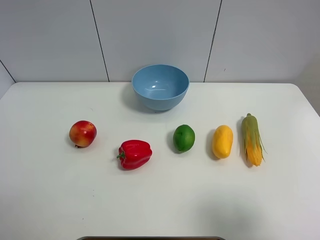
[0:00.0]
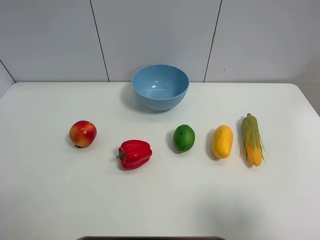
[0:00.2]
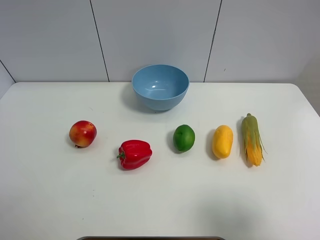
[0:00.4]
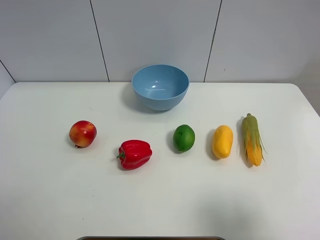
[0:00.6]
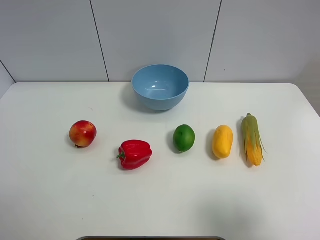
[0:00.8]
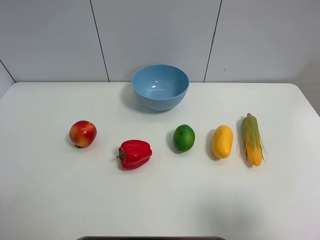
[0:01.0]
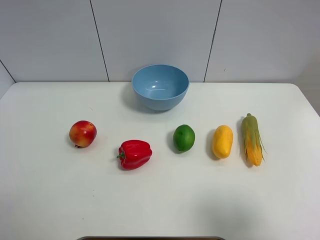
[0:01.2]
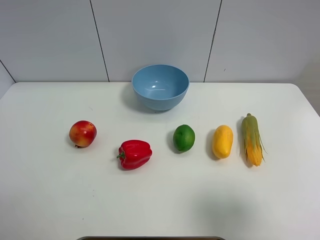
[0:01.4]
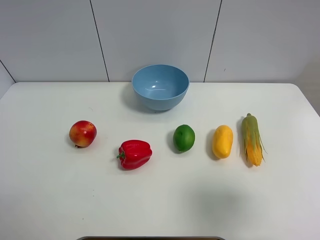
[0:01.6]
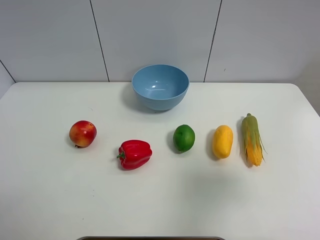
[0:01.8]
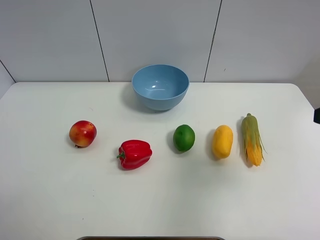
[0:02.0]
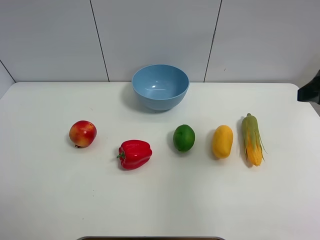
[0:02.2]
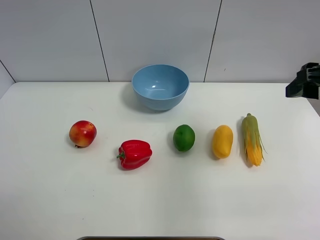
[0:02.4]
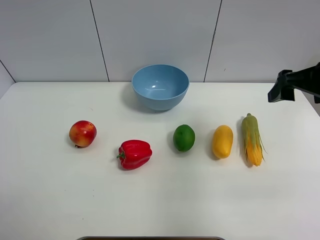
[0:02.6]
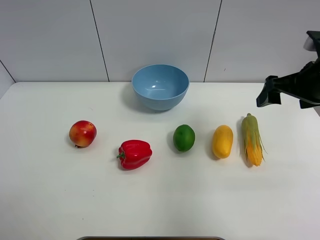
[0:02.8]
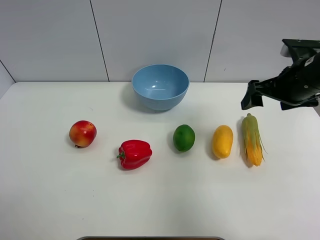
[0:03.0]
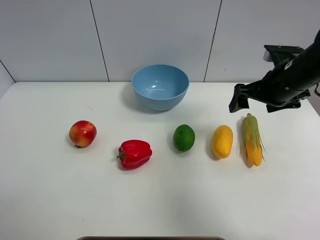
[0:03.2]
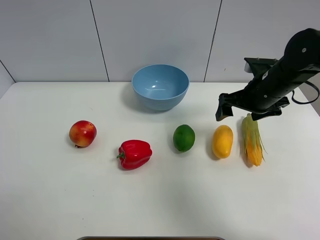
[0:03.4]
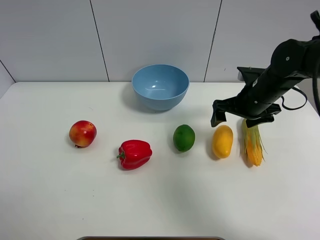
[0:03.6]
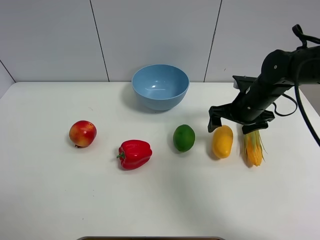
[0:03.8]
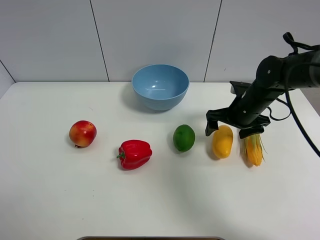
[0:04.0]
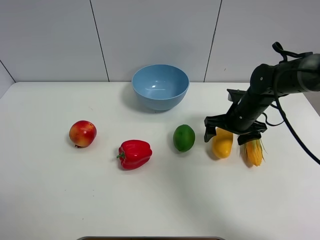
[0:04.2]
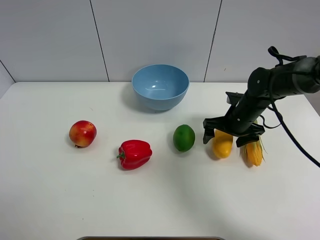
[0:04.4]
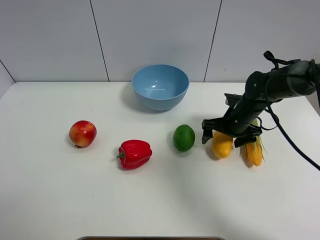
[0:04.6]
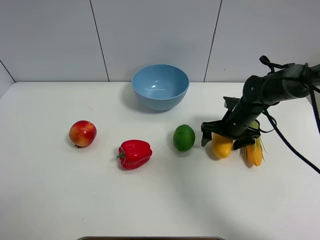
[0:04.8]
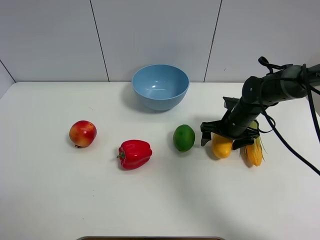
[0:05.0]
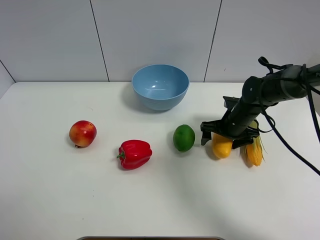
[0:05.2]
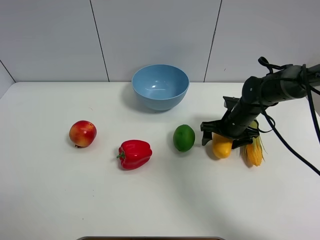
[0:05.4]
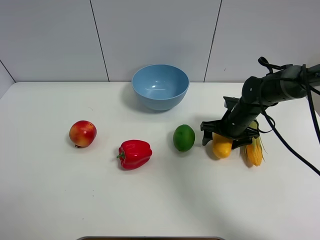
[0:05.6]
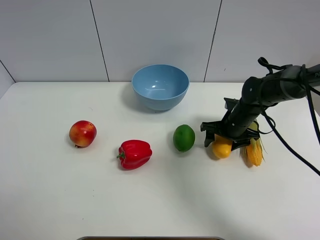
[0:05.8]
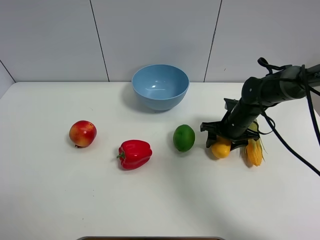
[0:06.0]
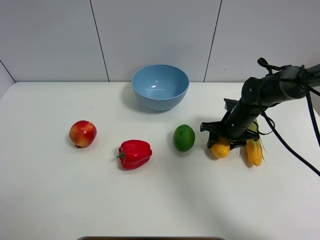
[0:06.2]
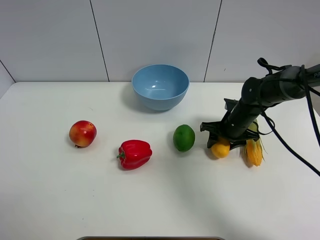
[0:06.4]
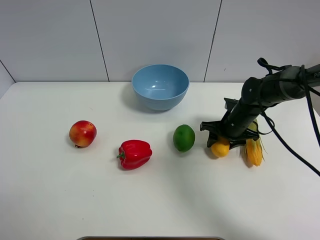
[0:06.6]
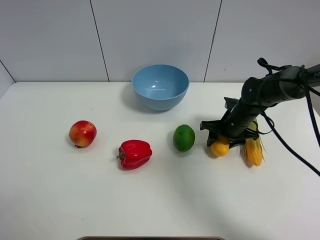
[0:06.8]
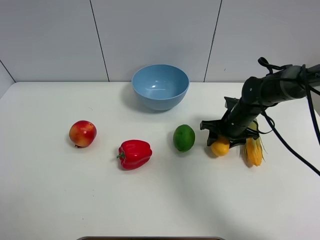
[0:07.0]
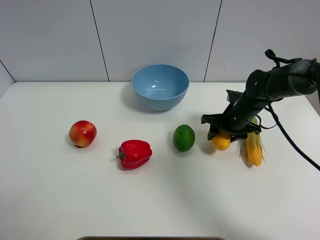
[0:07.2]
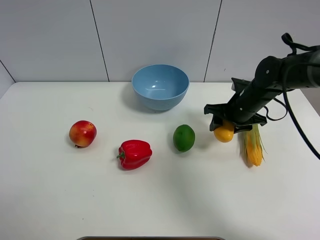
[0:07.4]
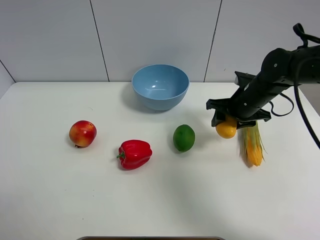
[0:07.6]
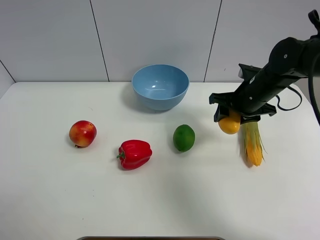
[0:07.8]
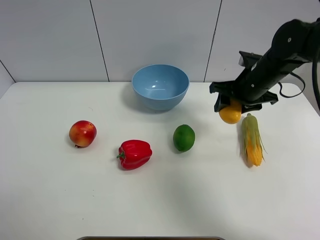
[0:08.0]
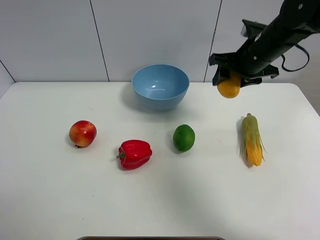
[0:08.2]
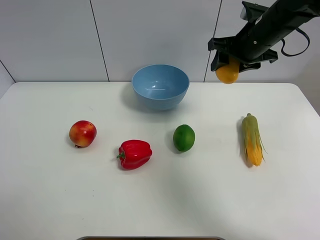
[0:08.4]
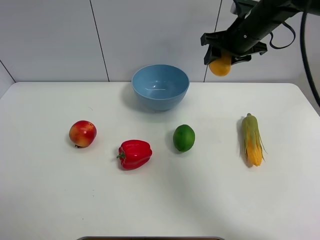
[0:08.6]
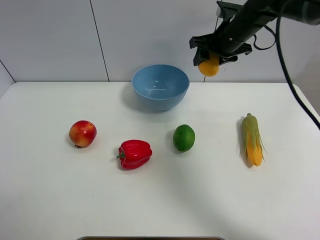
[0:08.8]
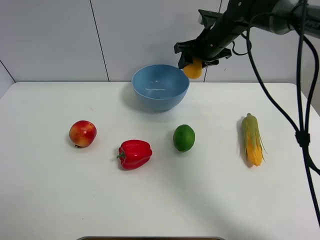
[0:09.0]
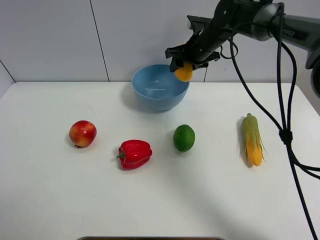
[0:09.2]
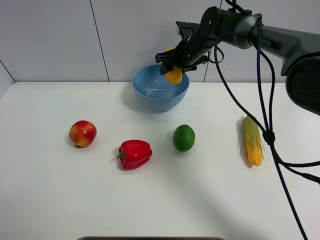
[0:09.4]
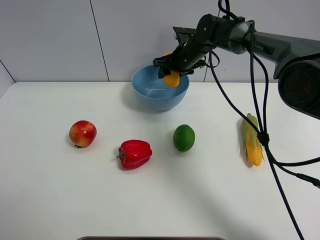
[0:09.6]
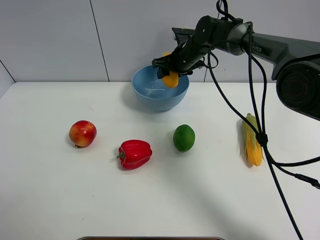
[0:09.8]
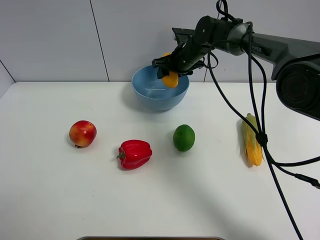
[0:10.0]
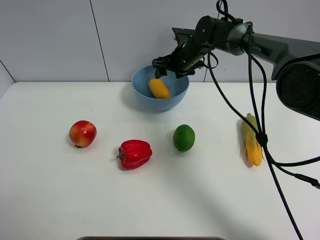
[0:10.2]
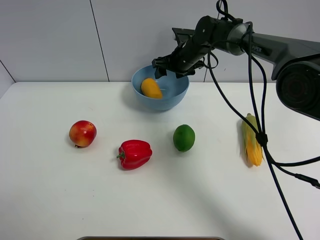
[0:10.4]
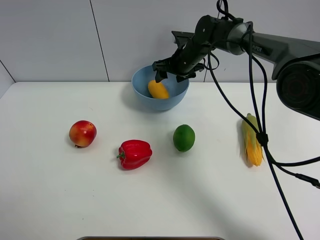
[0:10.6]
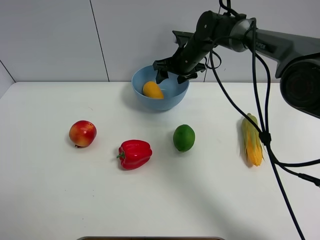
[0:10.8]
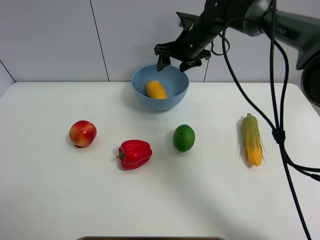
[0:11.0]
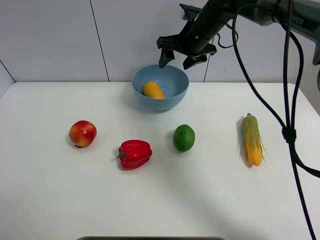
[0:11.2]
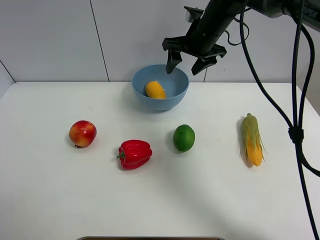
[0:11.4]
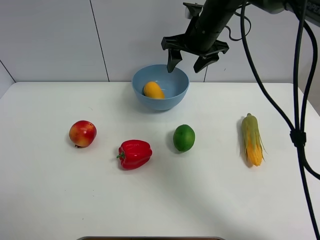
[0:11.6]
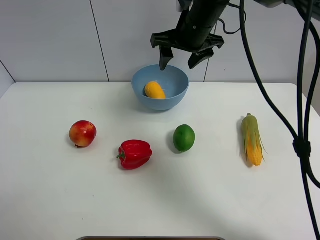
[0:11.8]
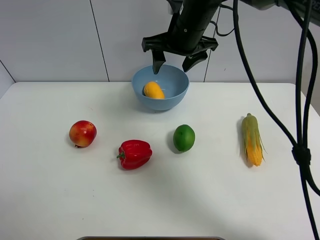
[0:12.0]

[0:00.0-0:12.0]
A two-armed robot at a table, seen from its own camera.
Task of the whole recording: Put the three fruits on the table into a bowl.
Step, 0:00.0 to 0:06.0: Grasp the mango with right gripper.
Step, 0:06.2 to 0:10.2: Place the mango in the blue bowl with right gripper.
0:00.0 to 0:01.6: The right gripper travels forward by some 5 cm.
0:01.6 to 0:03.0: The right gripper goes about 25 cm forward, and opens up.
0:03.0 to 0:04.4: The right gripper shifts some 15 cm downward.
0:04.4 to 0:06.0: The right gripper closes up.
0:06.0 to 0:07.6: The right gripper travels upward by roughly 10 cm.
0:07.6 to 0:09.0: The right gripper moves forward, to the left and upward, some 15 cm.
0:09.0 to 0:10.4: The right gripper travels downward by some 5 cm, and opens.
0:10.4 to 0:12.0: The right gripper is displaced upward and backward by approximately 15 cm.

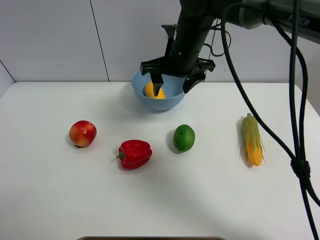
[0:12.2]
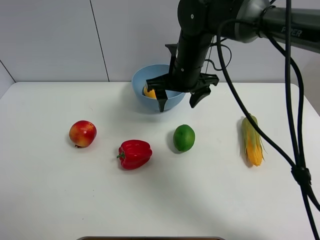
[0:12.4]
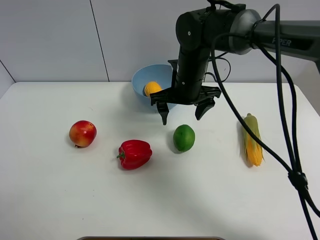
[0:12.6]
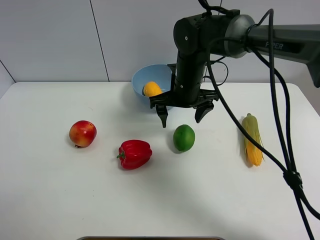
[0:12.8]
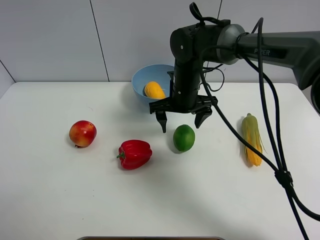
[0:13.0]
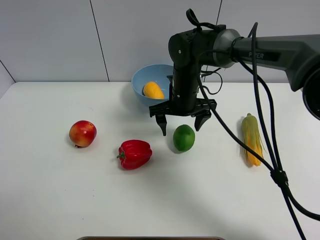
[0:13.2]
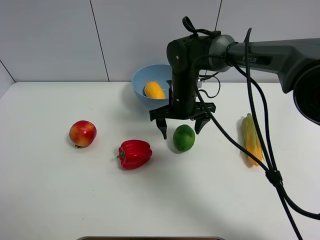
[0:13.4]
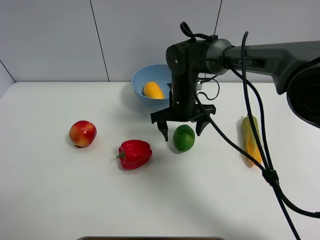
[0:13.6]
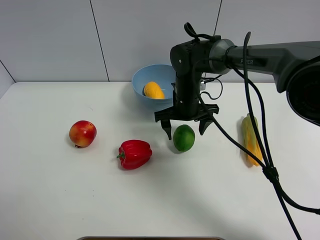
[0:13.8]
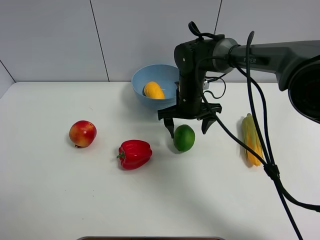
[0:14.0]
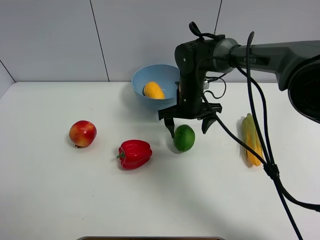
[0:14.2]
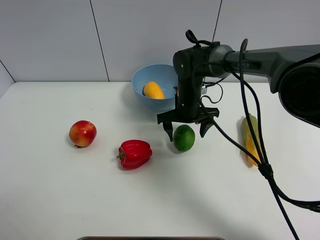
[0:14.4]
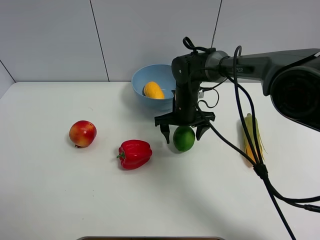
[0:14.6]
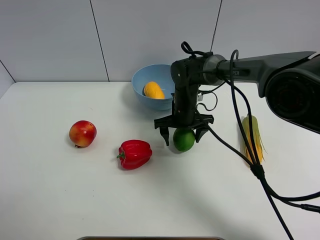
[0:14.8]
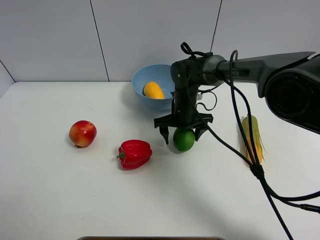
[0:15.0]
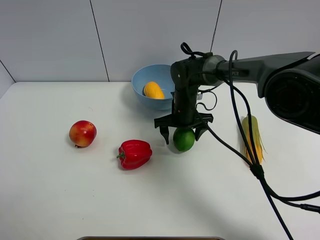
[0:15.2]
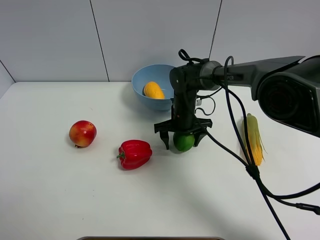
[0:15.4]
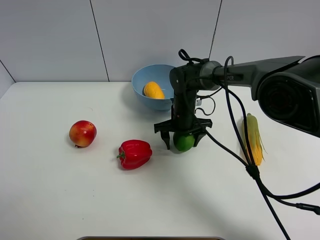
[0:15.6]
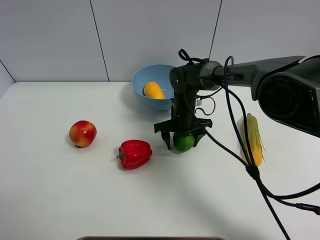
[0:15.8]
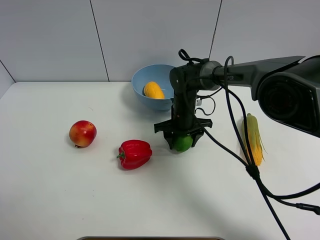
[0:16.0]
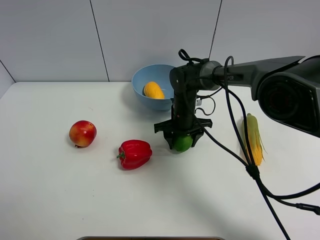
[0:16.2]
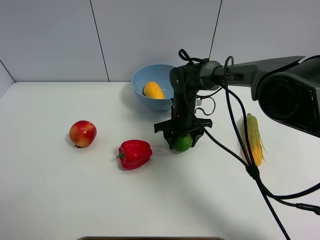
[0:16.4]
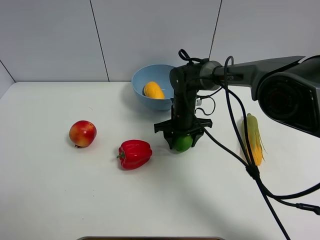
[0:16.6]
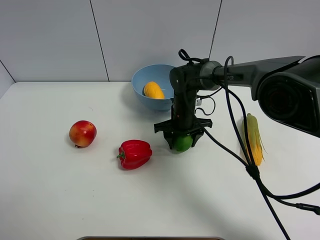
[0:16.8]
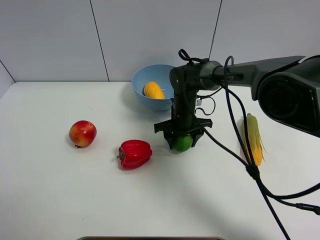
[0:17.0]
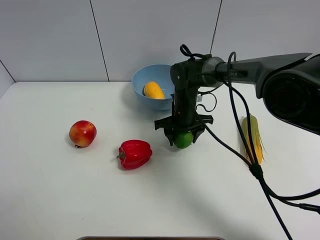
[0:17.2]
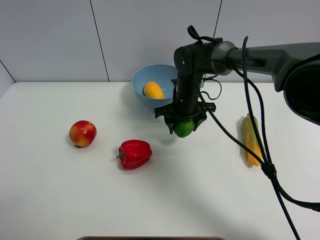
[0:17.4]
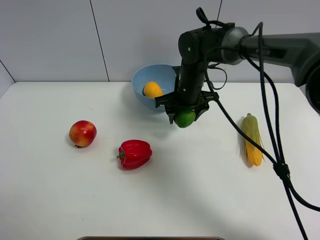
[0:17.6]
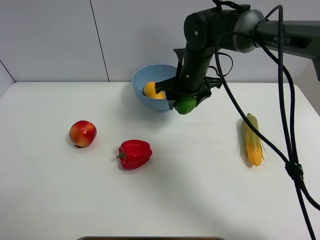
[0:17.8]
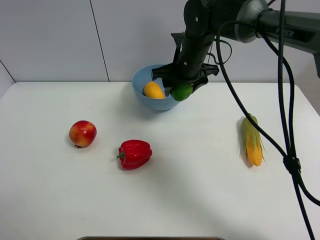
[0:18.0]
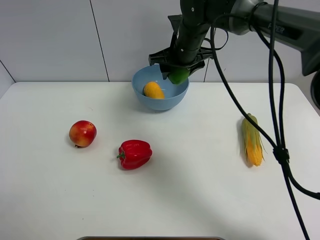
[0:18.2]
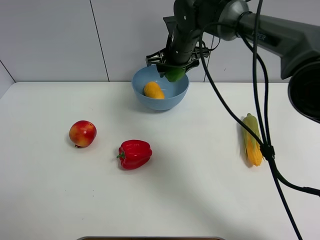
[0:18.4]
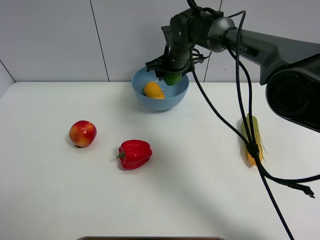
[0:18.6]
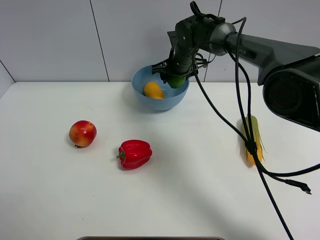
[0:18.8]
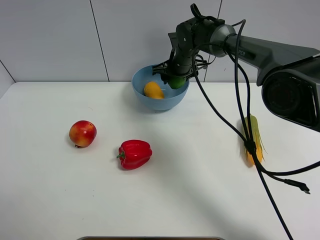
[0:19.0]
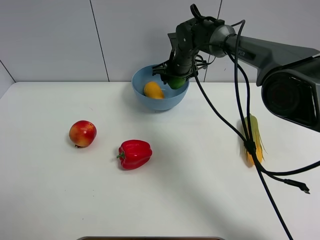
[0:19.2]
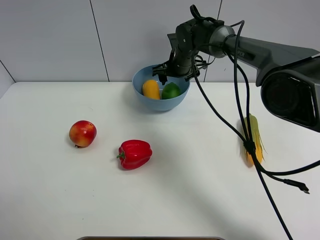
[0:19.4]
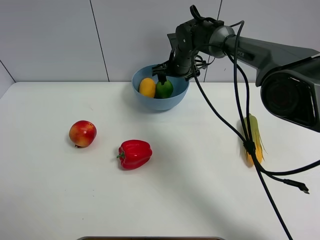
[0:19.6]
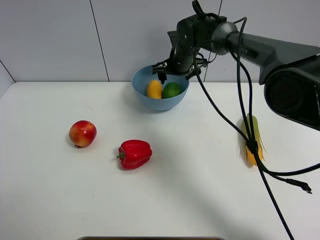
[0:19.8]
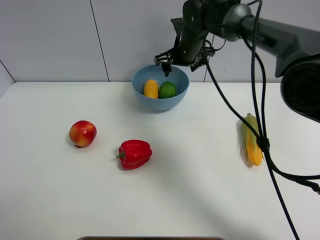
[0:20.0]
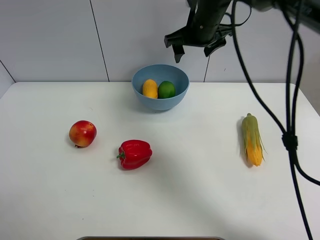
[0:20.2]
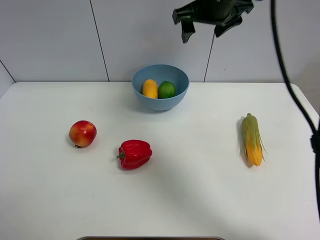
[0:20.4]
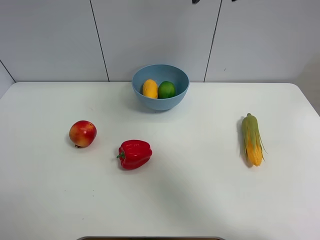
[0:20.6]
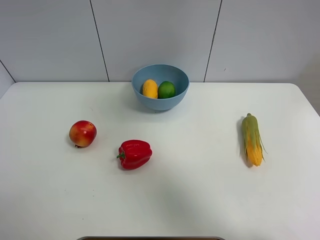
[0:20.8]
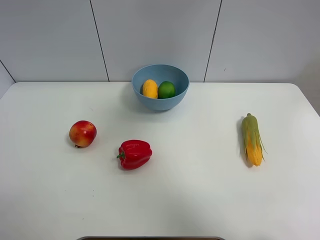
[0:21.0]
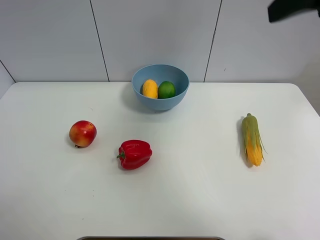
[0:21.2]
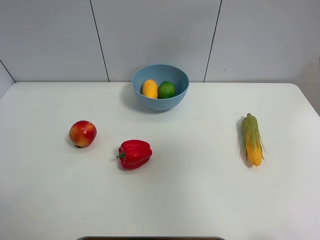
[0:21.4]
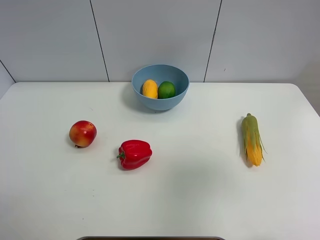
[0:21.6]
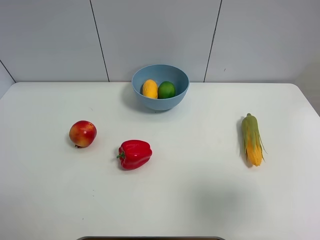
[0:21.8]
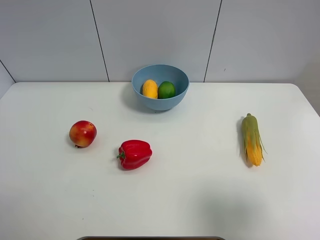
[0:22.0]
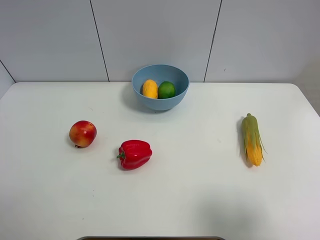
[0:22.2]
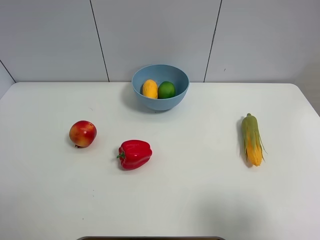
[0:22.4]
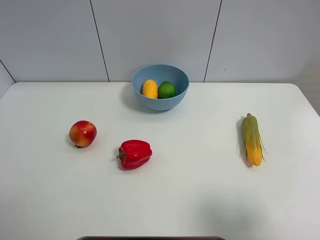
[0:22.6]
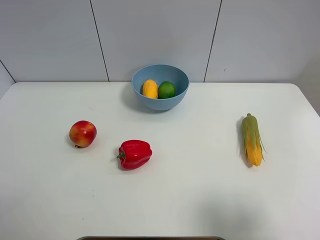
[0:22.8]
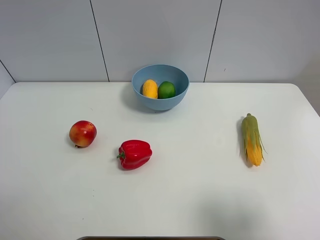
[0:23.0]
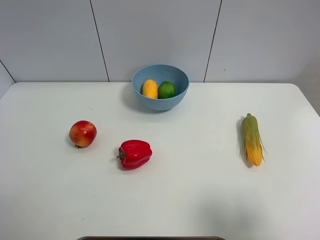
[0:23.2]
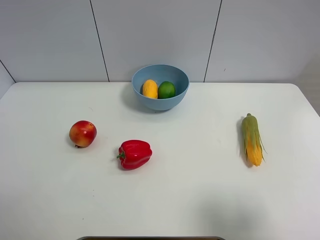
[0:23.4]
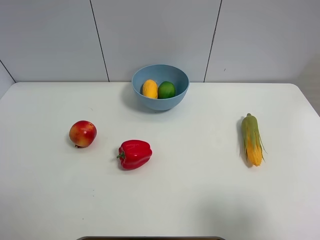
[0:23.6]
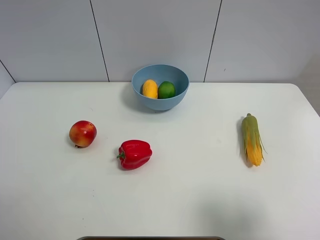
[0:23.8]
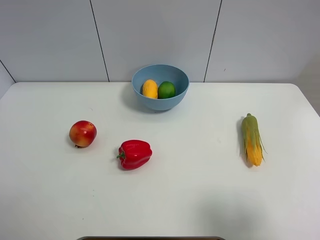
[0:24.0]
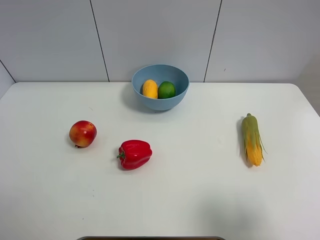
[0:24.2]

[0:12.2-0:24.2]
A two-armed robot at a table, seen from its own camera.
Task of the whole recording: Put the three fruits on the table into a bowl.
Step, 0:12.2 to 0:16.0: Grasp the green lemon with right gripper.
Step, 0:16.2 to 0:19.6: Place the green lemon in the blue bowl with right gripper.
0:12.2 to 0:13.8: The right gripper goes approximately 10 cm downward.
0:13.8 to 0:15.2: The right gripper shifts by about 5 cm.
0:15.2 to 0:16.6: The right gripper closes its fingers.
0:16.6 to 0:18.2: The right gripper moves upward, about 15 cm.
0:18.2 to 0:19.8: The right gripper shifts roughly 5 cm downward and forward.
0:19.8 to 0:21.2: The right gripper shifts approximately 40 cm backward, upward and to the right.
0:21.2 to 0:22.6: The right gripper is displaced backward, downward and to the right by about 25 cm.
